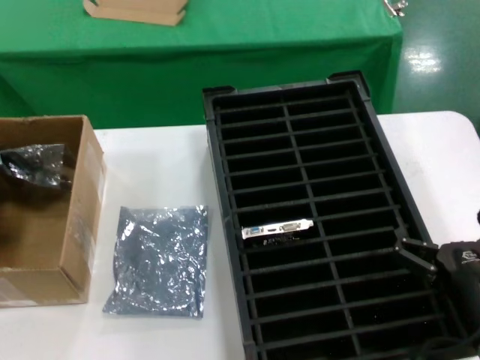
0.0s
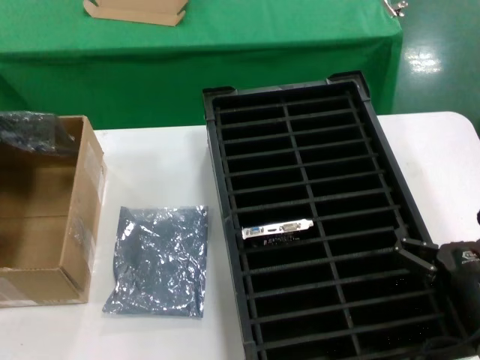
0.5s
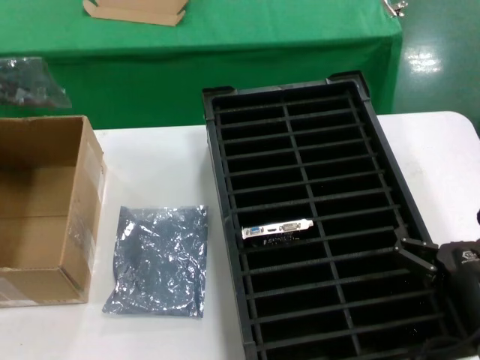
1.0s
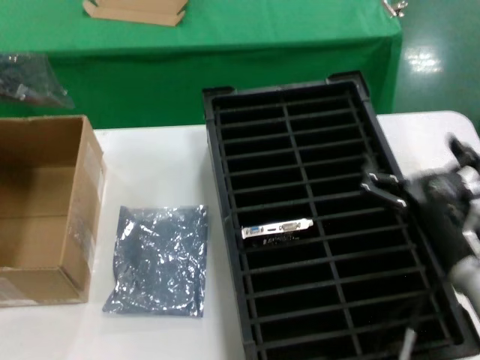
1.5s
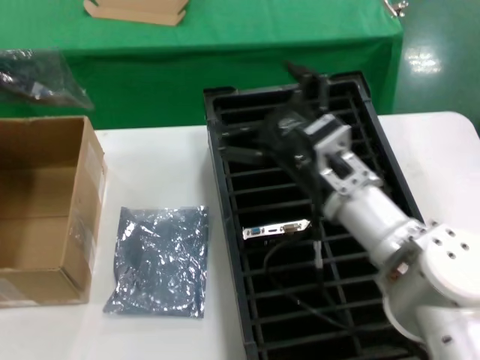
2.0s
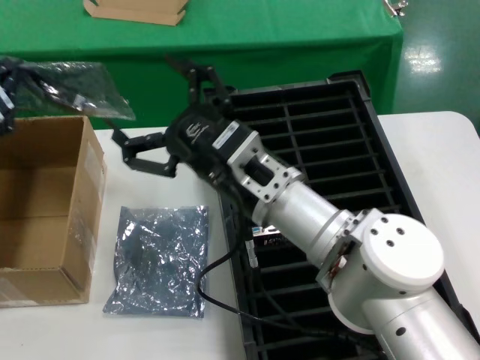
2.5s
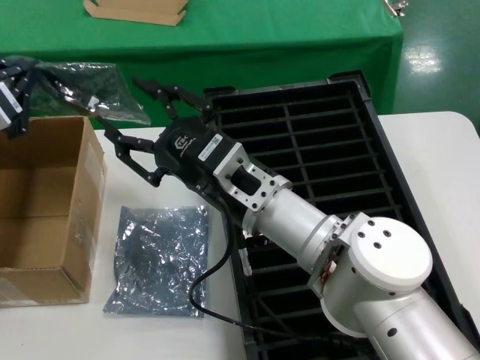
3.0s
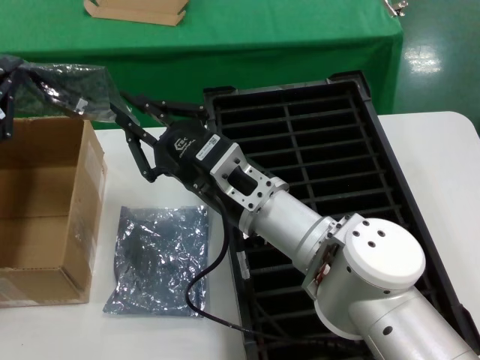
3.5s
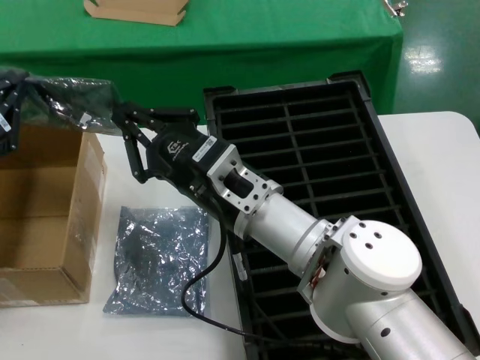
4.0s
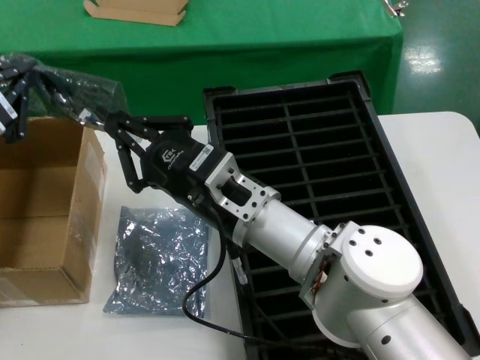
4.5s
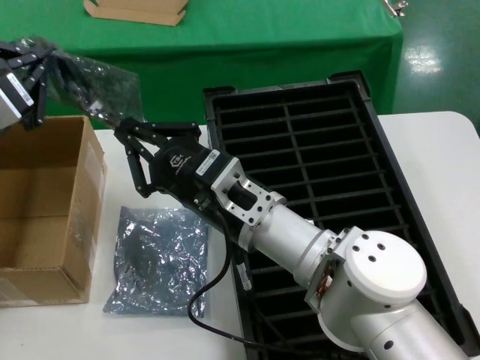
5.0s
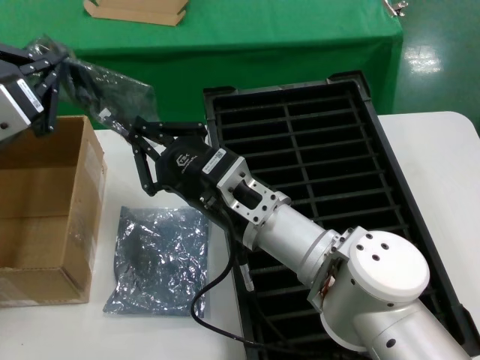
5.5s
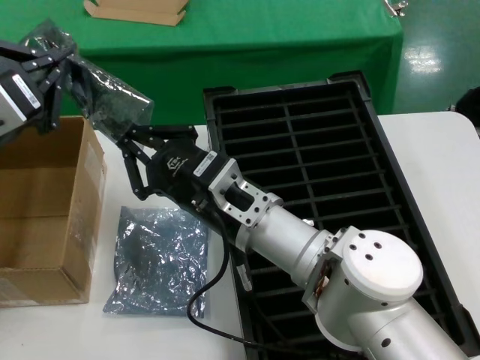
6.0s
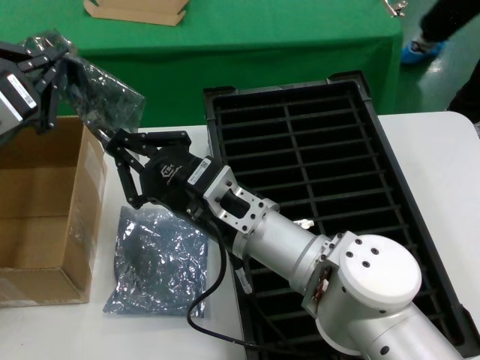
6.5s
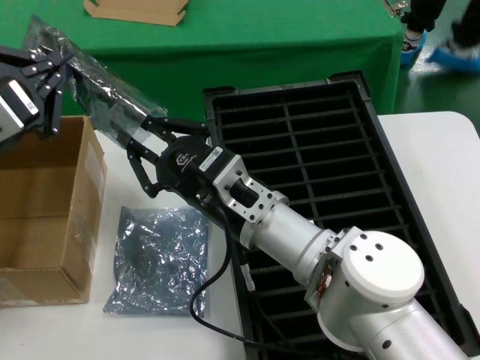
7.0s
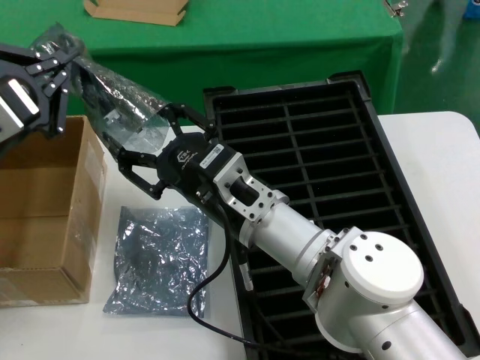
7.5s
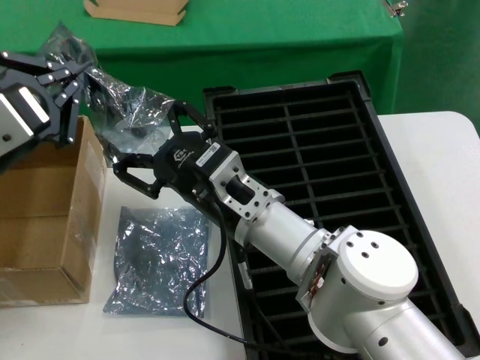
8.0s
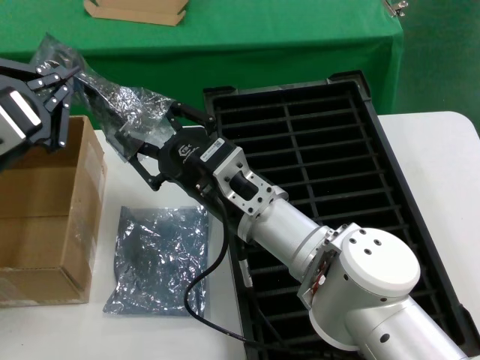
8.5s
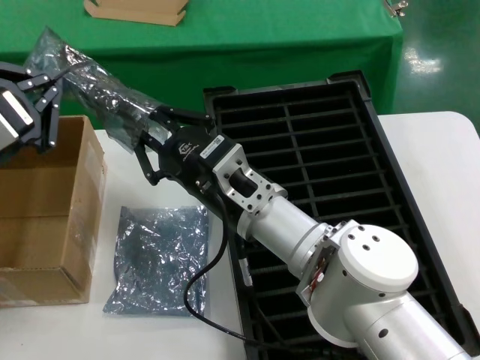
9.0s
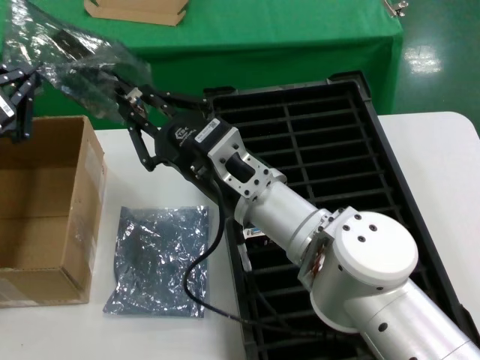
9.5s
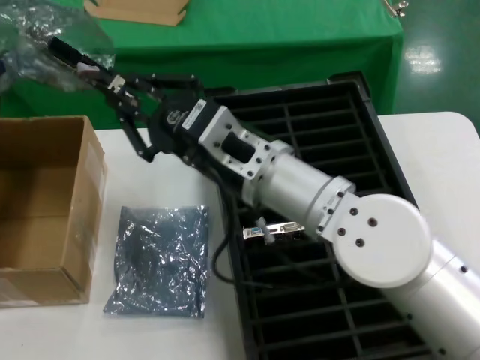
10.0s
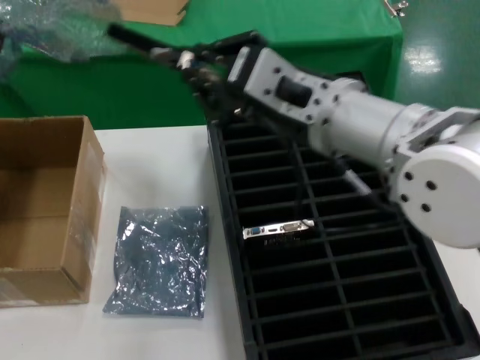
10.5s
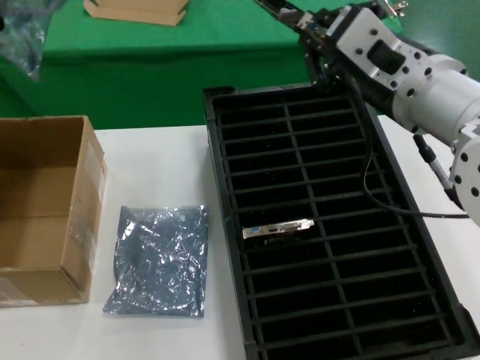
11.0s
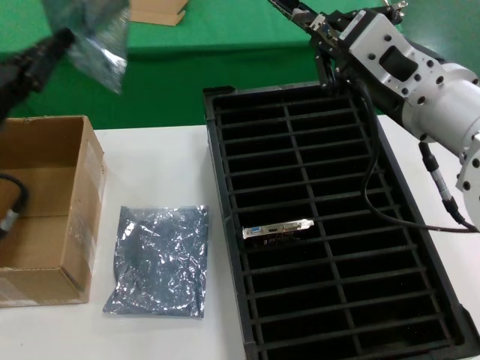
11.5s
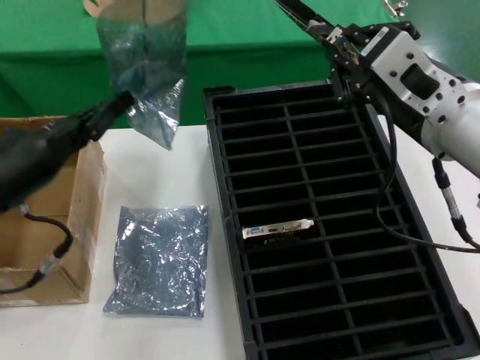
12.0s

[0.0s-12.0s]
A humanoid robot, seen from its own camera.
Task of the whole recording: take out graphics card from box remove packaging put into black container.
Step, 0.0s to 1.5s: Lift the bag.
Step, 2.0s to 10.5s: Take out the hard disk of the bag.
0.0s to 2.0s: The right hand is displaced to the left, forward and upward by about 20 cm. The left hand travels backward, upward and to the right by some 20 cm.
2.0s to 4.0s: The right hand goes about 10 cm to the left.
4.0s to 8.0s: The hands stay close to where they were, moving slightly.
8.0s to 10.0s: The left hand moves to the left and forward, about 10 cm; the right hand heads upward, covering some 5 cm.
10.0s to 12.0s: The left hand is displaced downward and forward by about 10 cm. Meanwhile the right hand heads to the right and upward, covering some 15 cm.

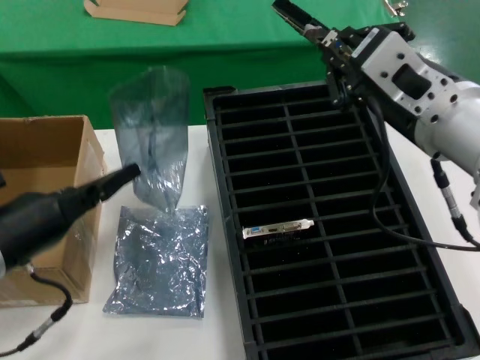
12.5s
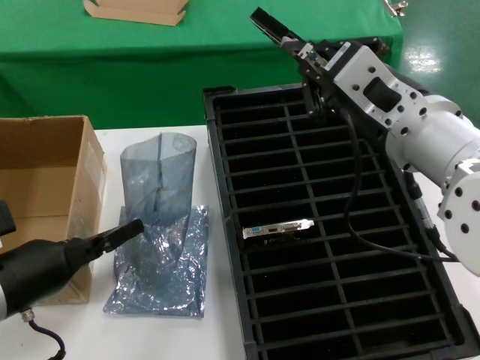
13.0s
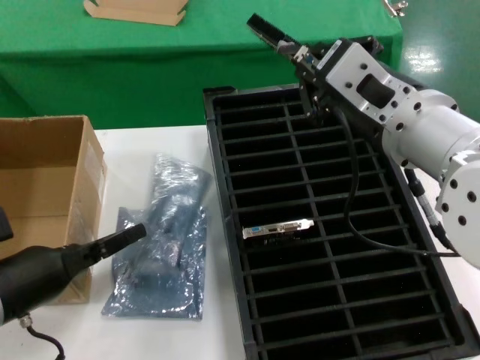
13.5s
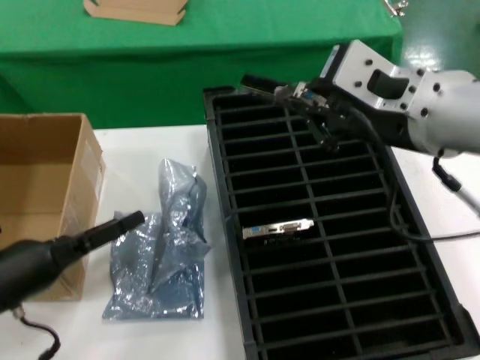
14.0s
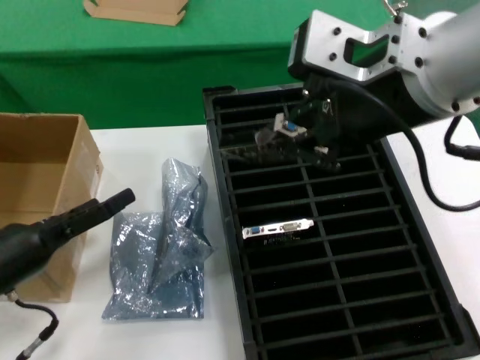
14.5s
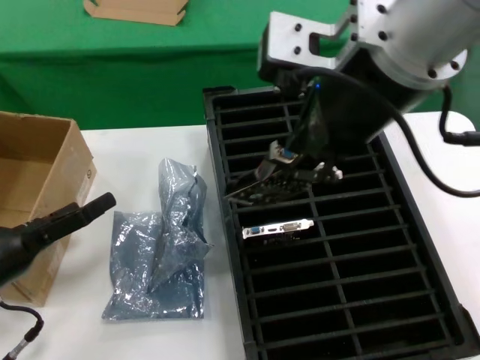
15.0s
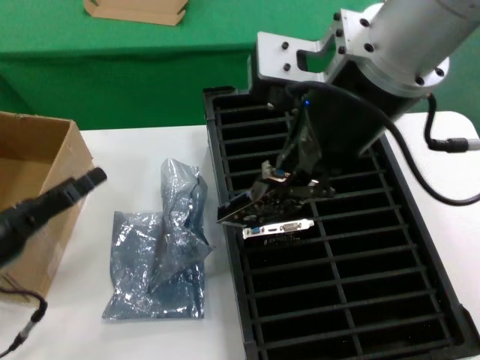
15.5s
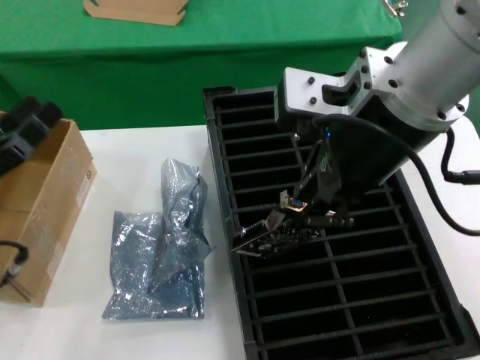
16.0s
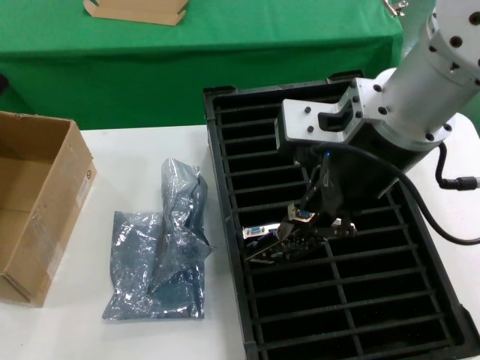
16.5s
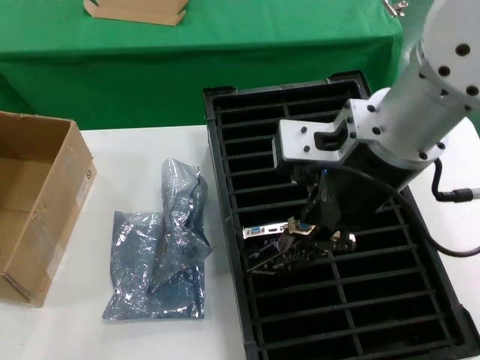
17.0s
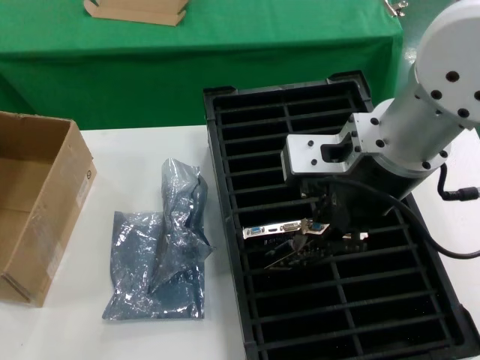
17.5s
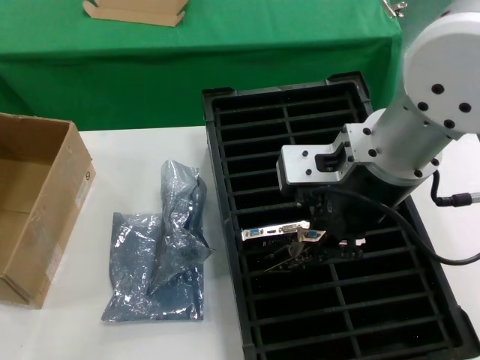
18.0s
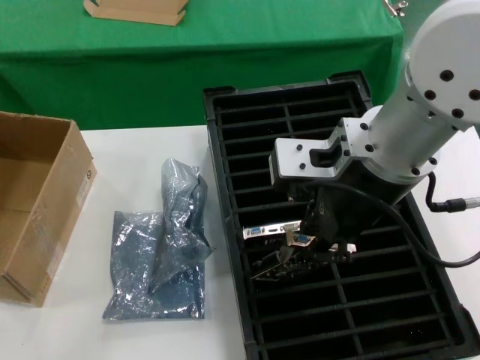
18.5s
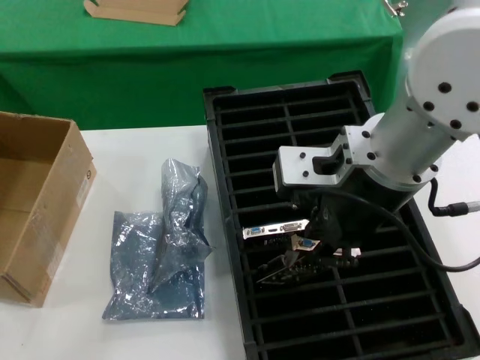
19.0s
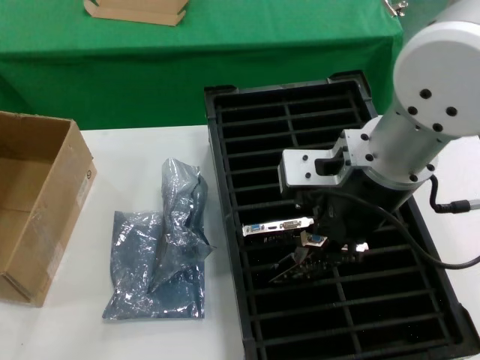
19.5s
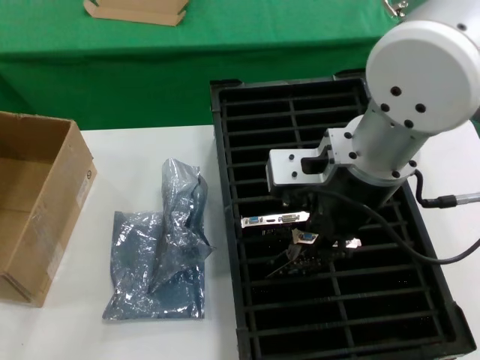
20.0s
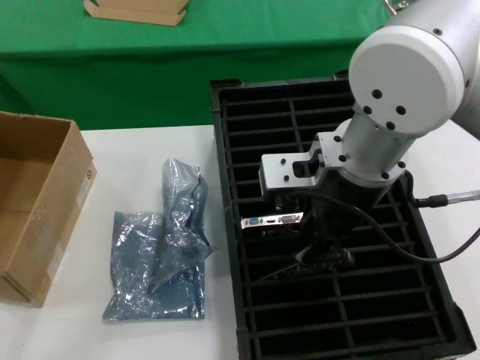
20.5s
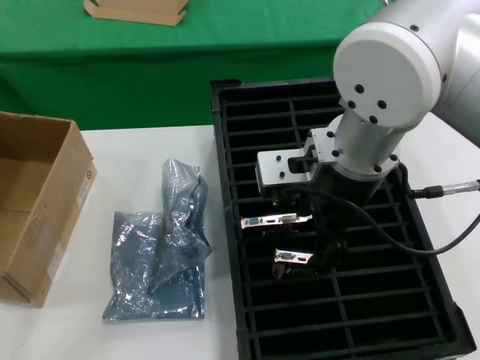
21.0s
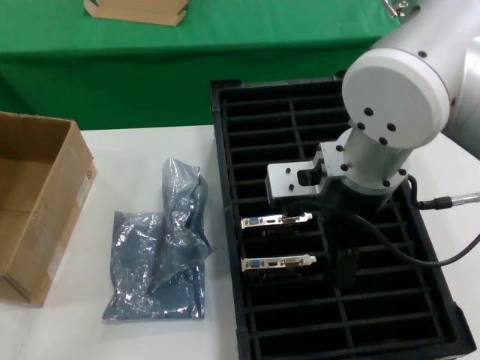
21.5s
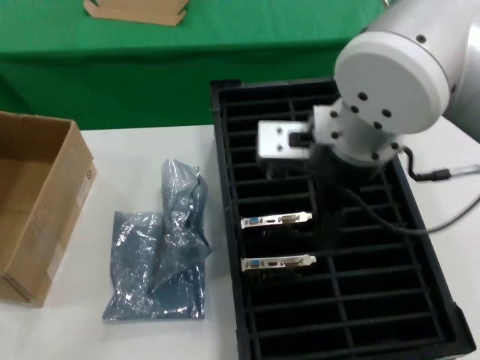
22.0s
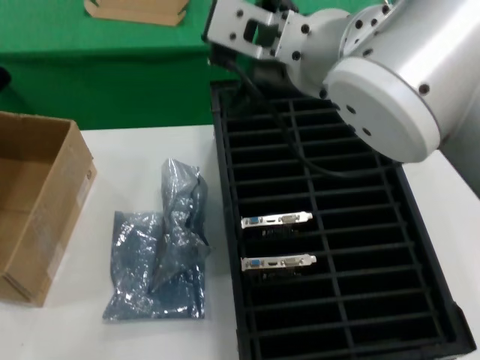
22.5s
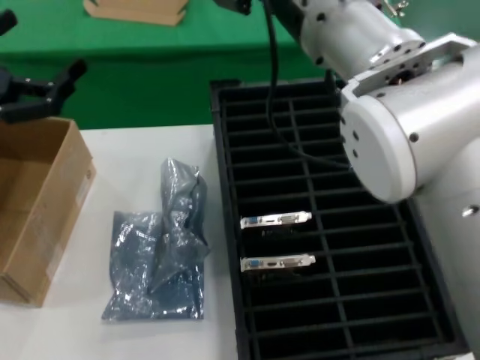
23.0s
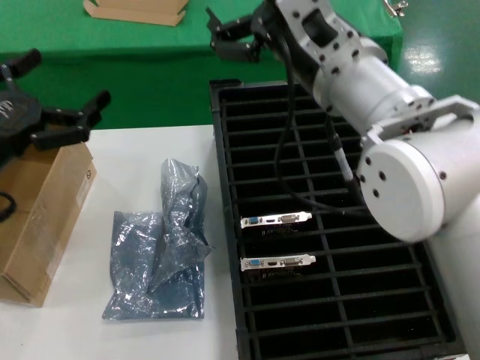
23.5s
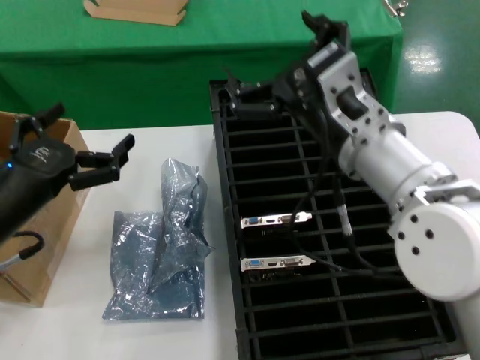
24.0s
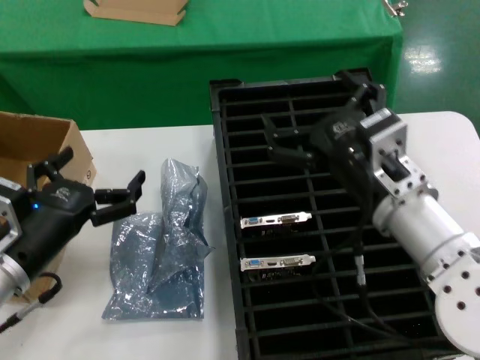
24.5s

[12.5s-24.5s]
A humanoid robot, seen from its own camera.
Task of the whole recording: take out graphics card from box remove packaging put into black container.
Step, 12.5s to 21.5s: Place the hard disk in the hard disk enclosure.
Step, 22.0s to 23.5s: Place the down the bag.
12.5s to 14.5s: The left hand travels downward by about 5 cm. Meanwhile the right hand heads upward, covering some 10 cm.
14.5s to 16.5s: The left hand heads upward and to the left, covering about 10 cm. Meanwhile the right hand ends up roughly 5 cm from where it was.
16.5s to 18.5s: The left hand shifts by about 5 cm.
20.5s to 22.5s: The right hand changes place by about 5 cm, while the left hand ends up about 5 cm from where it was.
22.5s to 24.5s: The right hand travels downward and to the right by roughly 25 cm, while the left hand is displaced to the right and downward by approximately 20 cm.

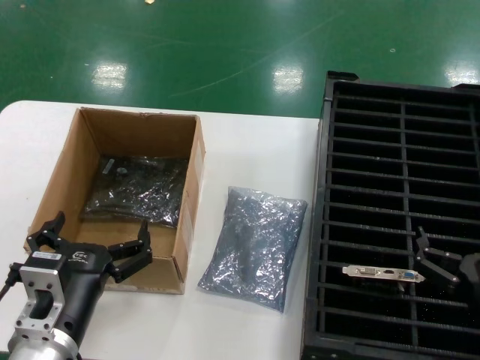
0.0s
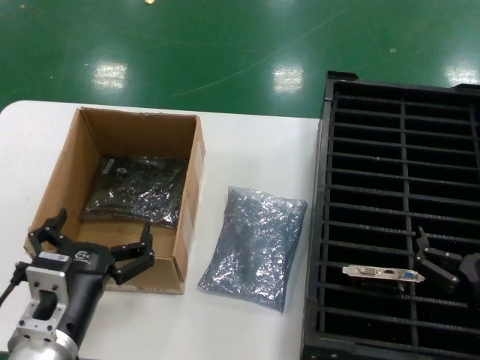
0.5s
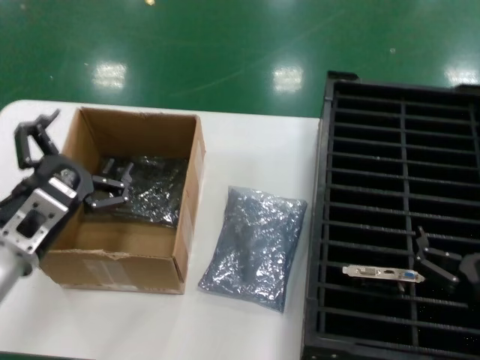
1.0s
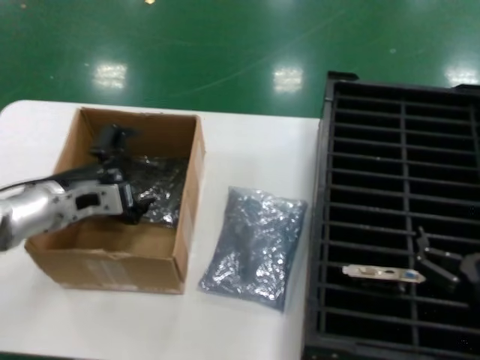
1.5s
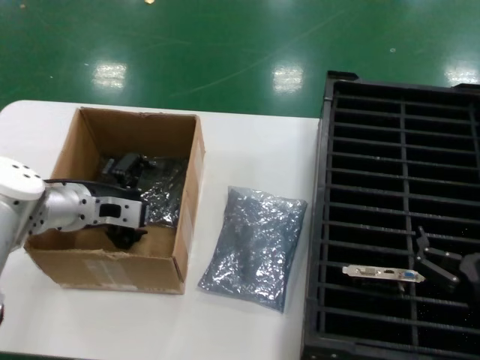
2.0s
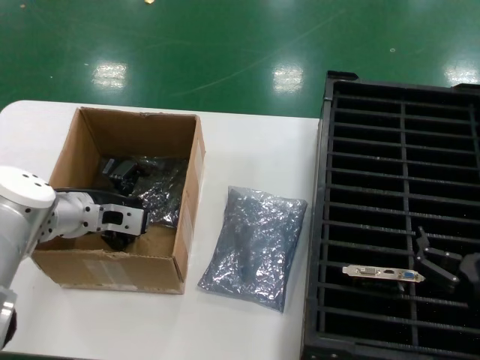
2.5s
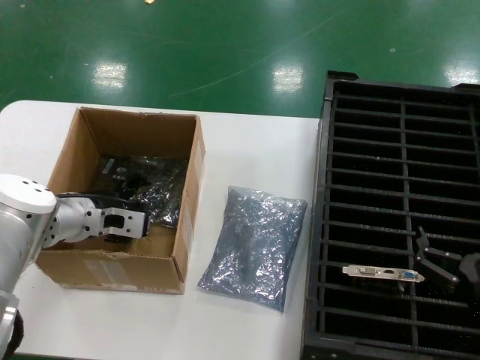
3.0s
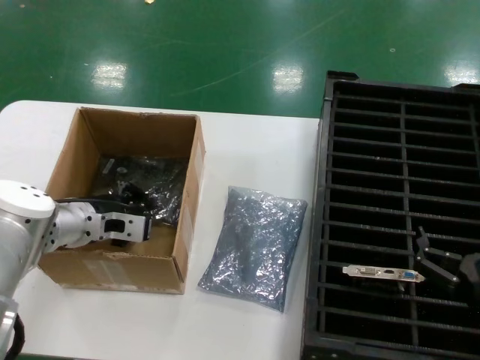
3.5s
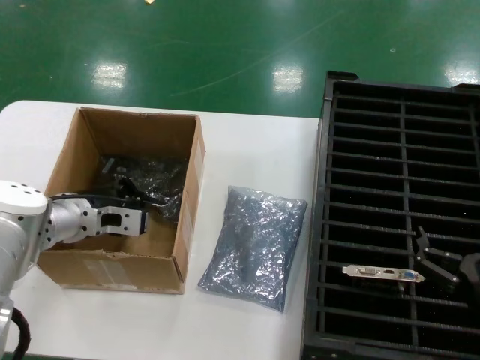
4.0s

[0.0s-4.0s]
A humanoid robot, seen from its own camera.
Task of the whole recording: take out graphics card from box remove packaging put into black container.
Step, 0.0s to 3.5s: Grasp the bag.
0.0s to 2.0s: The left hand moves forward, approximately 25 cm.
2.0s to 4.0s: The hands stay close to where they were, moving slightly.
